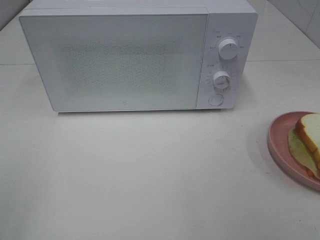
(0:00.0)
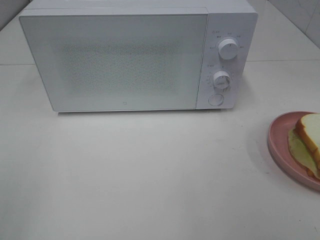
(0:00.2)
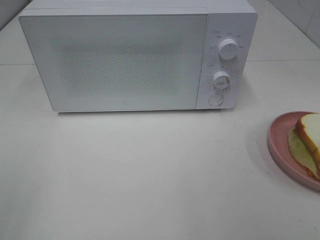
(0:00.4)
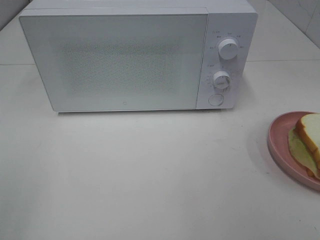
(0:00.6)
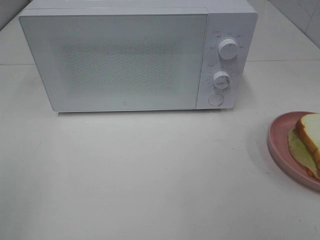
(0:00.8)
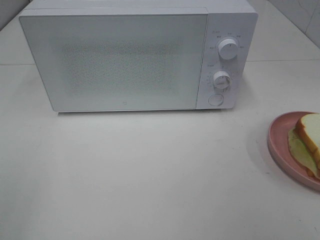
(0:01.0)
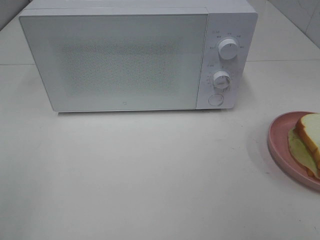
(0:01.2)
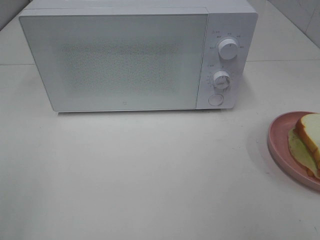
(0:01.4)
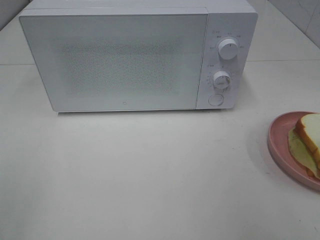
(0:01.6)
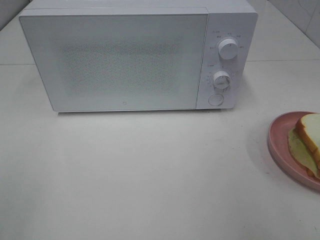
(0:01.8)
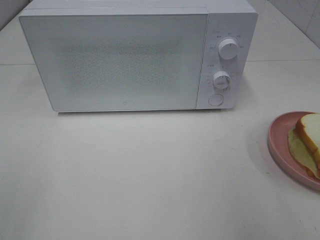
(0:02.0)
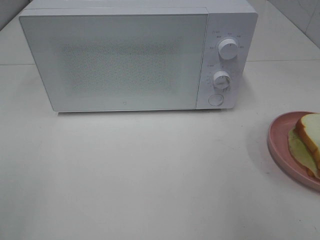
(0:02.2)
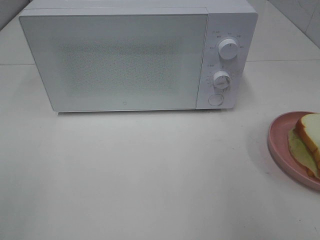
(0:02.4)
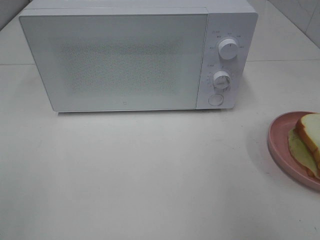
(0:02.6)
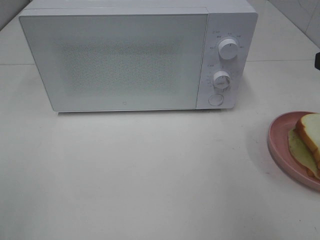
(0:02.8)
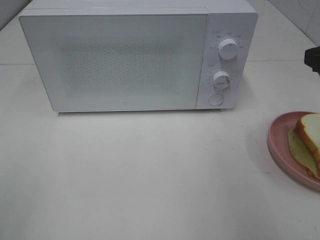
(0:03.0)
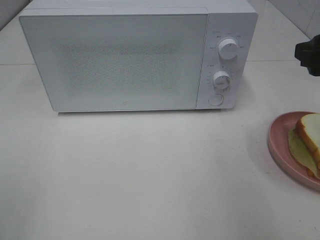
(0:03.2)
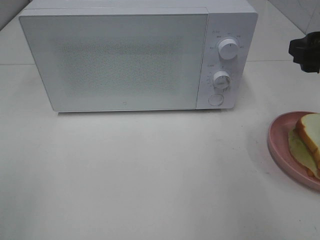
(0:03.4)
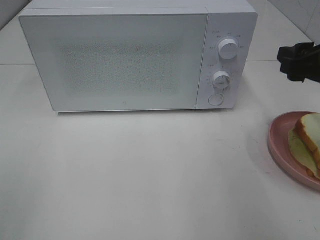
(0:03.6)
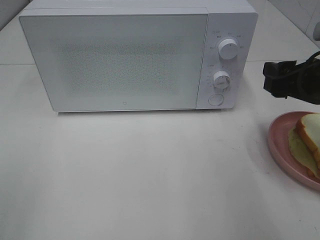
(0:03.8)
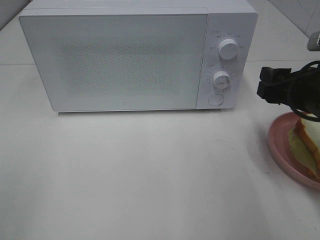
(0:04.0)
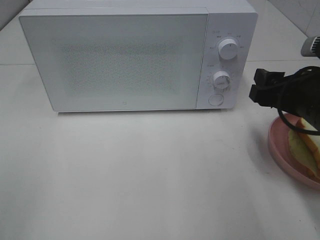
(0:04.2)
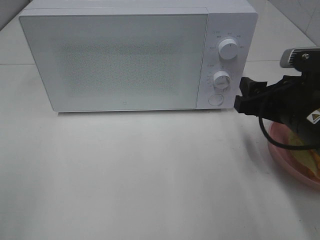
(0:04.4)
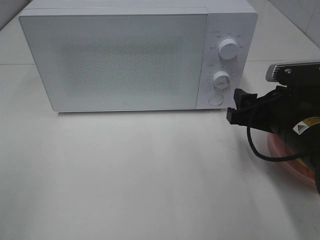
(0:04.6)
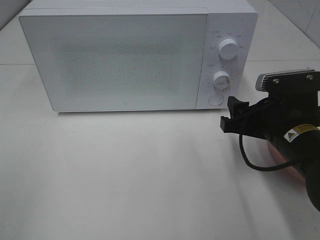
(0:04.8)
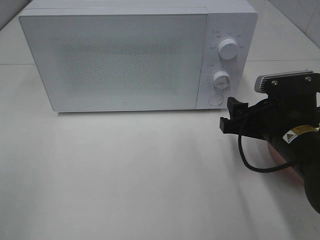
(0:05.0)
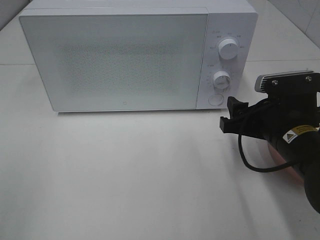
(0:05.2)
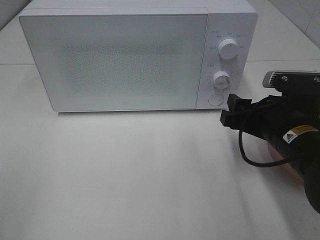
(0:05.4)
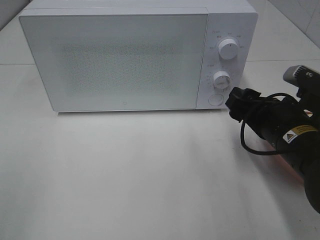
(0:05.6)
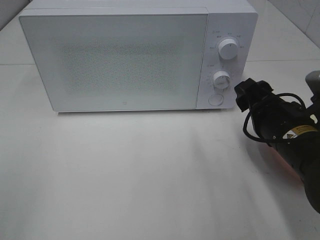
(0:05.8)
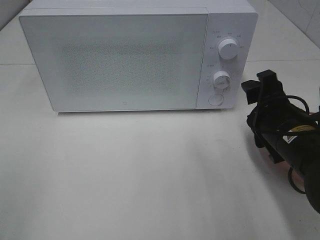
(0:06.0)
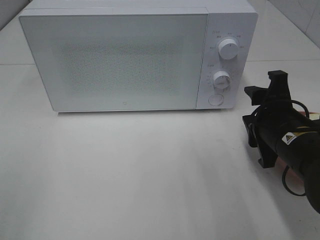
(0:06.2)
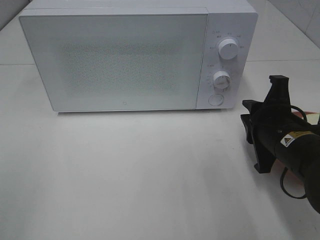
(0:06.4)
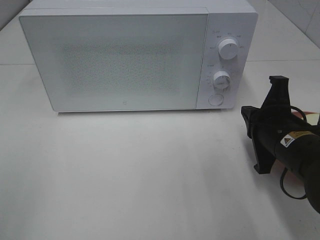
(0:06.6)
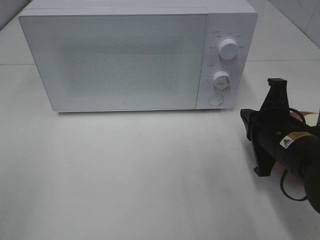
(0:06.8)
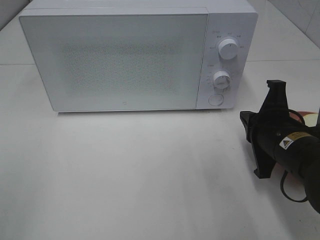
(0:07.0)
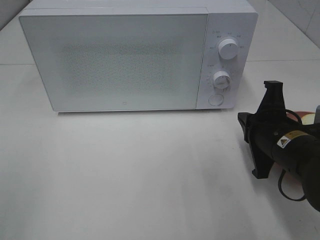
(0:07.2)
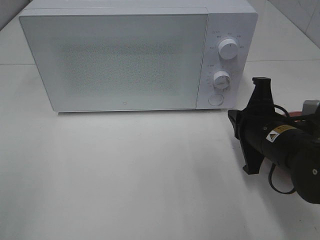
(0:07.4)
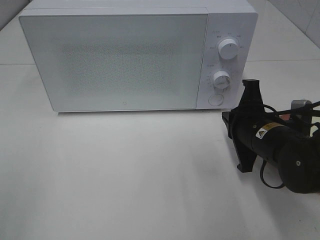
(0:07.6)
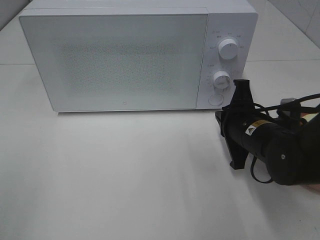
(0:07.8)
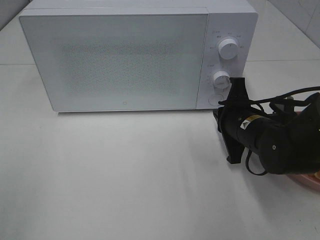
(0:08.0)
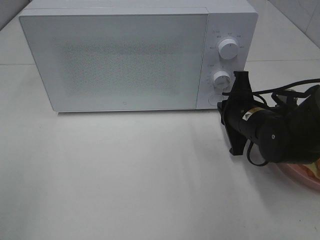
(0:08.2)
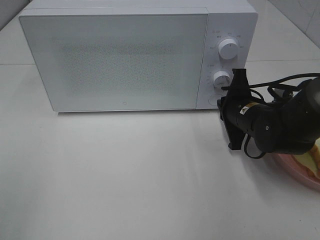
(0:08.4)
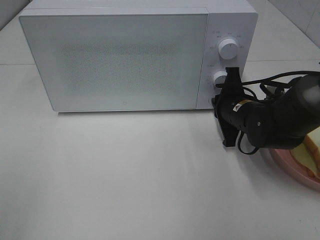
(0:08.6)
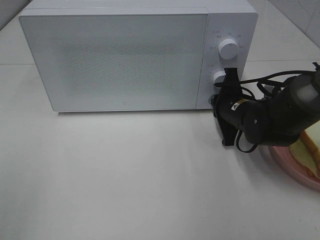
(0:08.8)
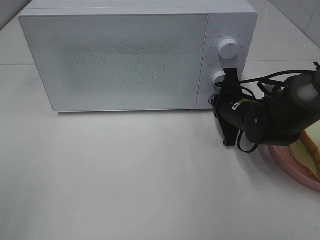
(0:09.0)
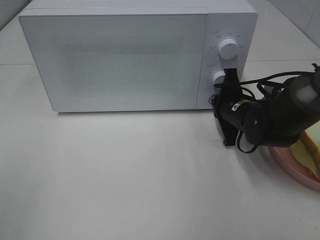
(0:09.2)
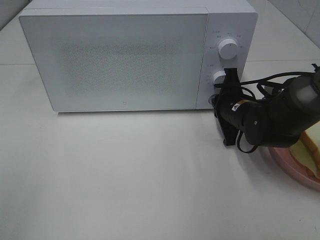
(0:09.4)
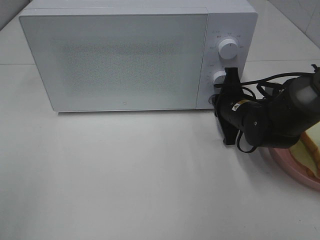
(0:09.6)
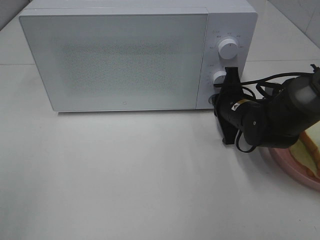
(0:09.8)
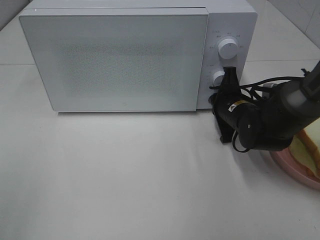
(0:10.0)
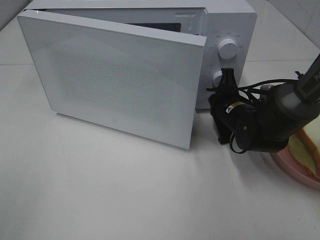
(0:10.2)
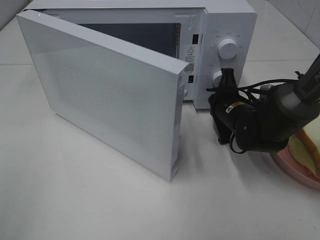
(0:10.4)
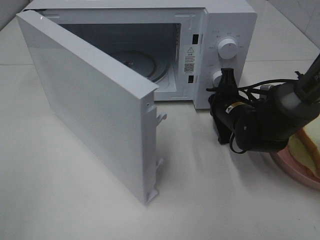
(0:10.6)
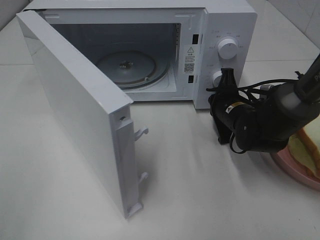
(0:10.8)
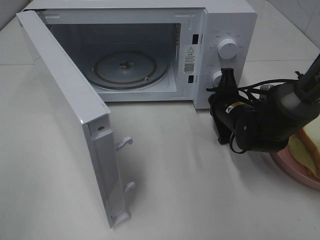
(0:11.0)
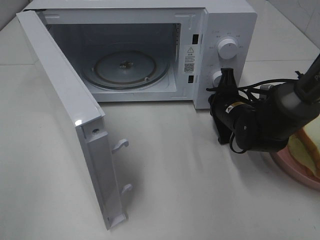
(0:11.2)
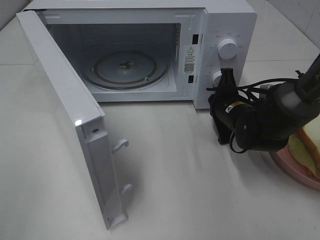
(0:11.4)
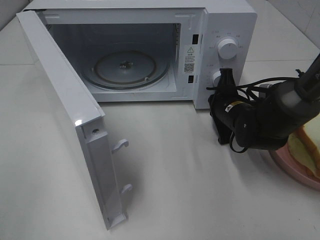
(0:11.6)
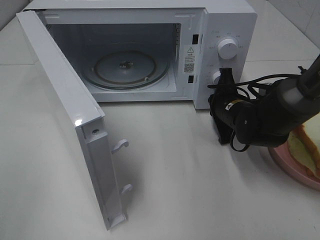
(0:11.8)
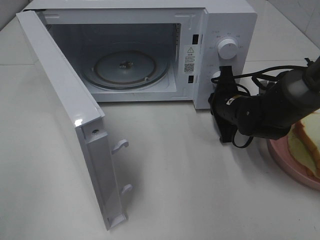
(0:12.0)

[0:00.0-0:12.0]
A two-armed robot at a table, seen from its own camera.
Task of the whole recording: Heat Sandwich.
0:03.0 to 0:04.4: The right gripper travels downward and to the left by some 10 cm.
0:06.0 to 0:07.6: The right gripper closes.
0:07.6 to 0:09.0: The right gripper travels forward by roughly 10 cm.

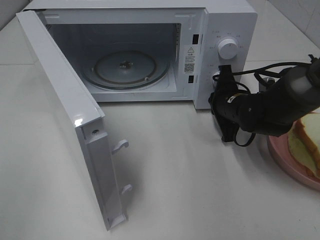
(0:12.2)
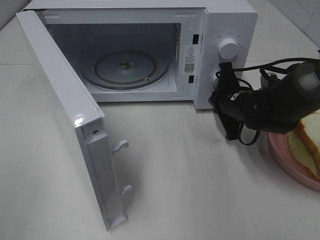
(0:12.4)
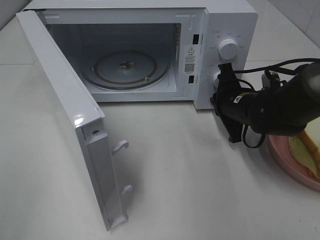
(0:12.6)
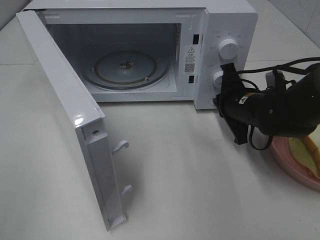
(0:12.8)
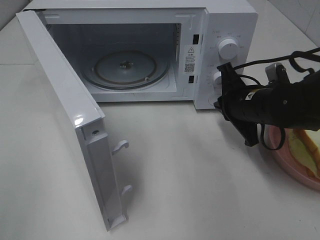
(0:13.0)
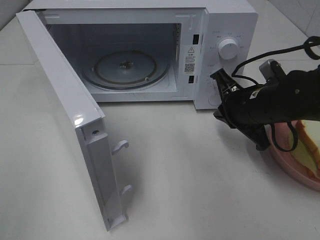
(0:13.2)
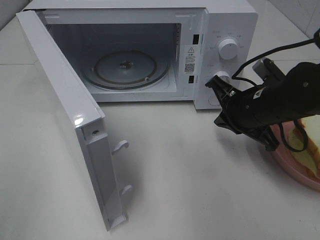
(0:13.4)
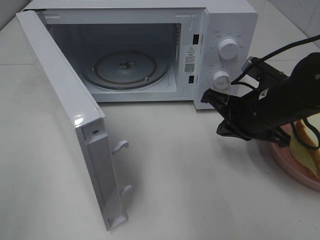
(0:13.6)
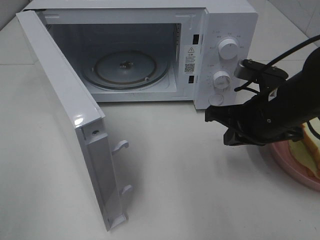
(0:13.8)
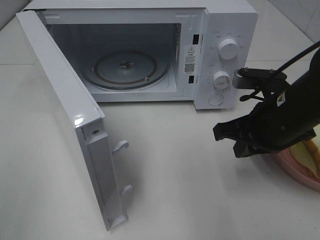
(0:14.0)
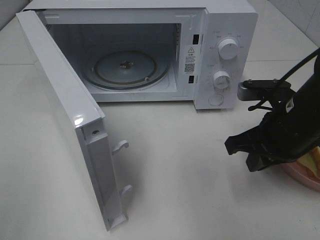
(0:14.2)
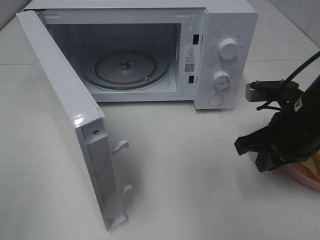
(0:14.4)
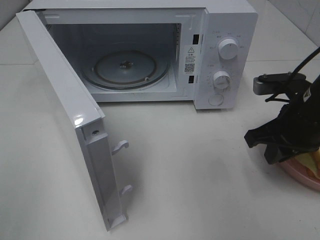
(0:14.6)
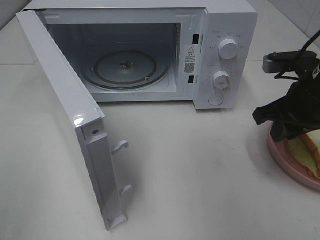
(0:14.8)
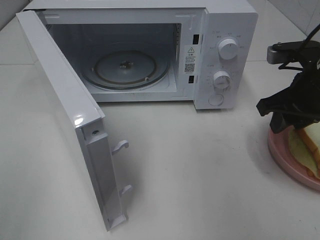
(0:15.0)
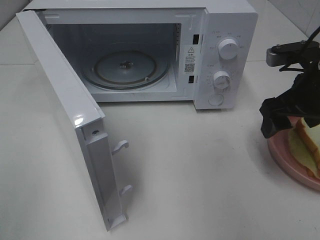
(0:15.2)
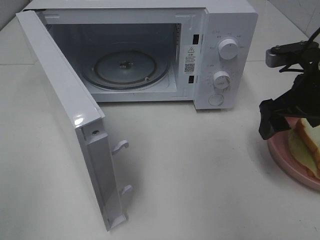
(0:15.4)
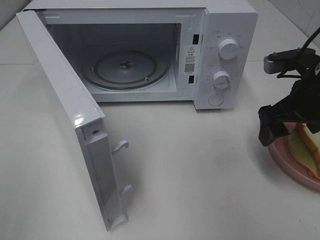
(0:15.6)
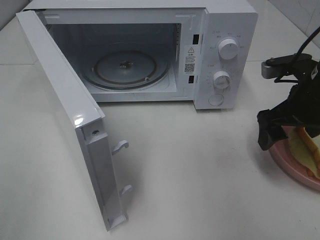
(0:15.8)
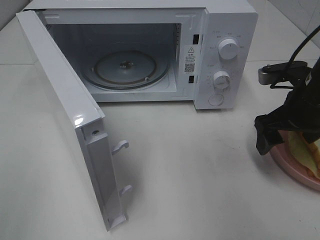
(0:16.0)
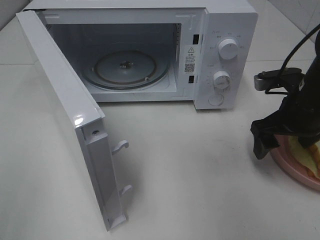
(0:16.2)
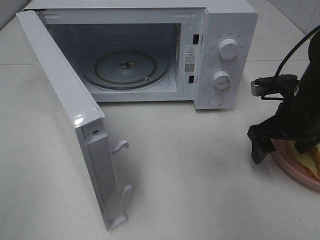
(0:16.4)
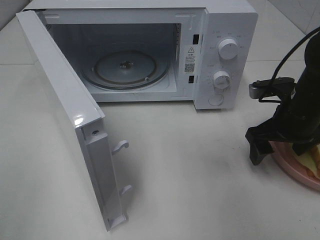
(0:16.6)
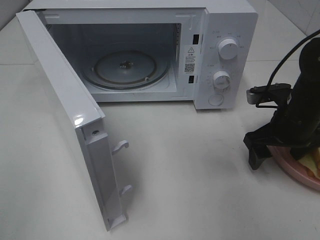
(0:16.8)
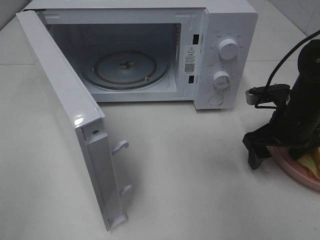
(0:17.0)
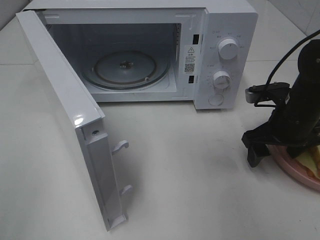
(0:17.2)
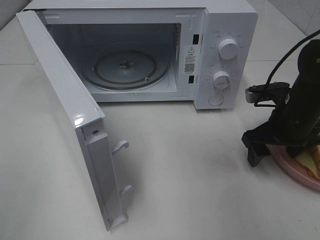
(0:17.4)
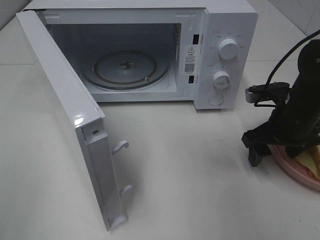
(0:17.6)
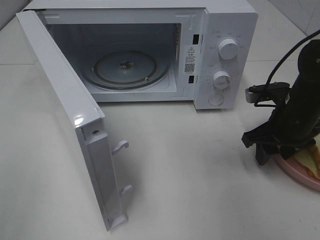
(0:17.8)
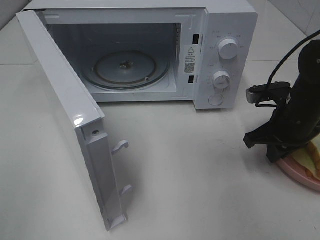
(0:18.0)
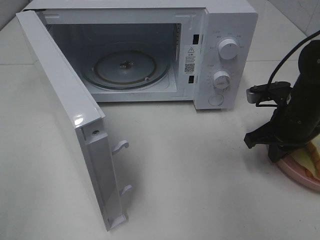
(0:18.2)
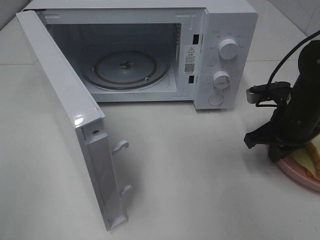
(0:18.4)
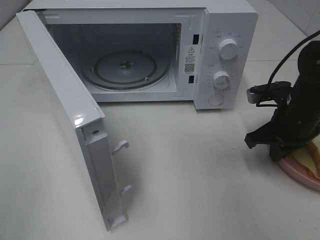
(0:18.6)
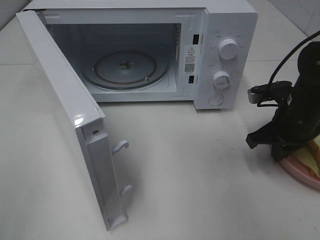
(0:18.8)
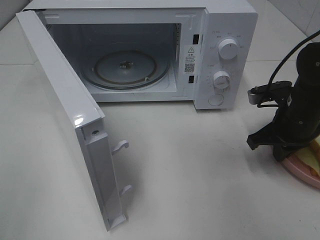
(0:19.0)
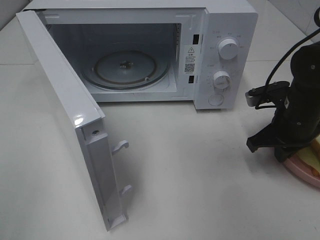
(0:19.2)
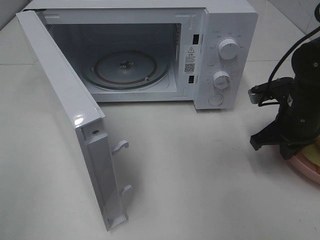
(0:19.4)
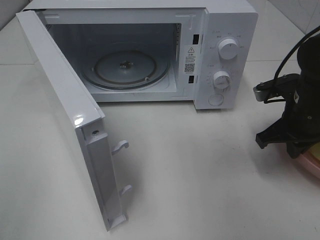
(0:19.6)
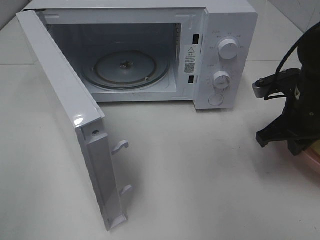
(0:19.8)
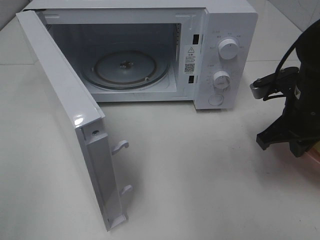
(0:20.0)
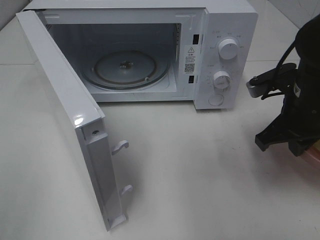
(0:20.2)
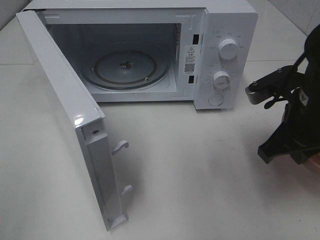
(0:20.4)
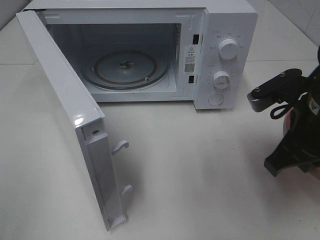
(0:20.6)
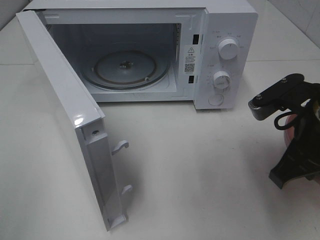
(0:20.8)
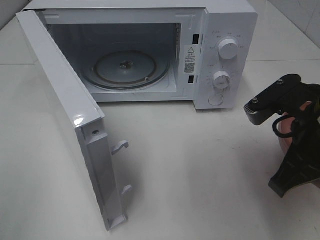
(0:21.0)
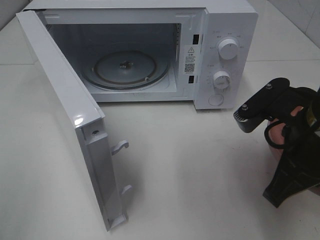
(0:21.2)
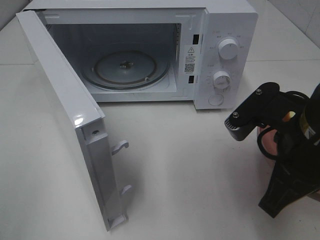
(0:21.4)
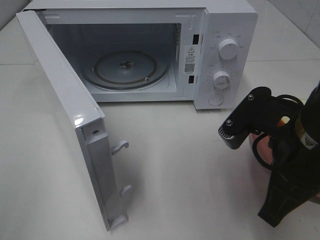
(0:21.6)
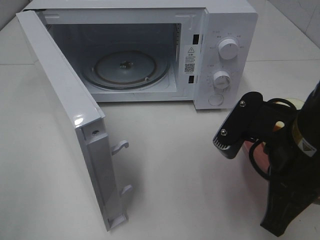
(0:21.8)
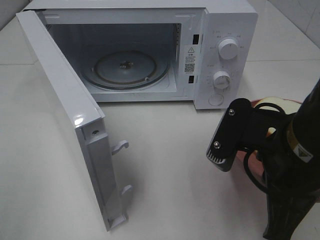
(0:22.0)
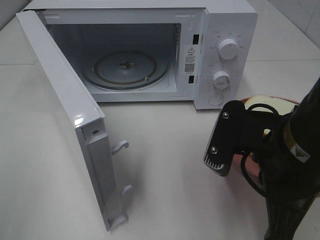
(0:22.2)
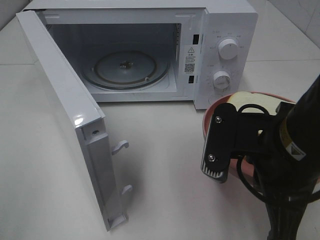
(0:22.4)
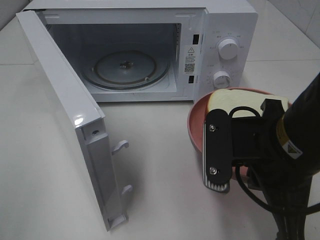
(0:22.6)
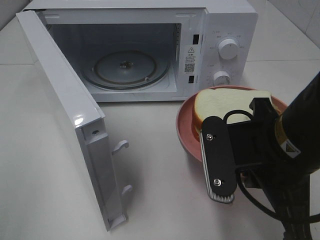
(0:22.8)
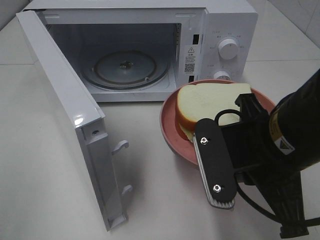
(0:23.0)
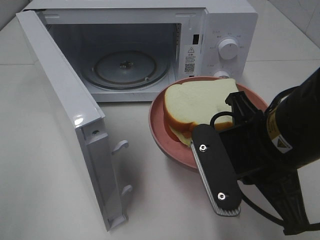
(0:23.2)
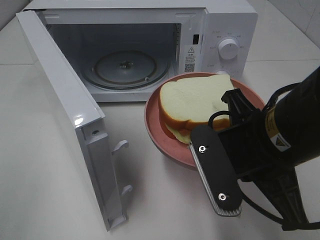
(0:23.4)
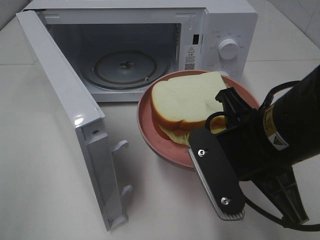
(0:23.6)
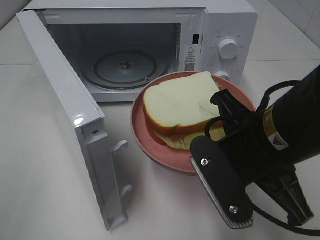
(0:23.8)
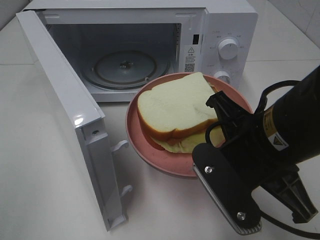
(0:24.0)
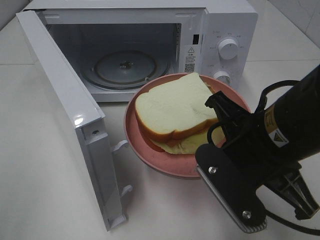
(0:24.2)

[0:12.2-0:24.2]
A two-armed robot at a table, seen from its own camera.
Task of the whole recording: Heat Sandwich.
Step, 0:12.8 to 0:18.6: Right hand: grab the plate with the sandwich.
0:12.2 to 0:13.8: The right gripper moves backward and upward, some 15 cm.
0:13.8 to 0:15.2: The right gripper goes some 5 cm to the right, and opens.
0:15.2 to 0:16.6: The right gripper is displaced downward by about 5 cm.
0:16.6 to 0:18.2: The right gripper closes its fingers.
0:18.2 to 0:19.8: The grippers move only a little.
0:19.8 to 0:21.2: The right gripper moves backward and to the left, about 10 cm.
